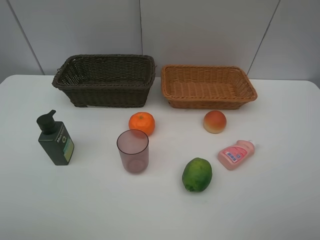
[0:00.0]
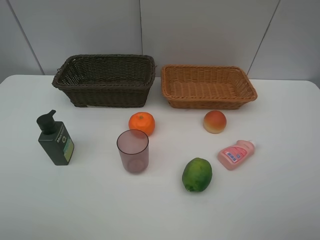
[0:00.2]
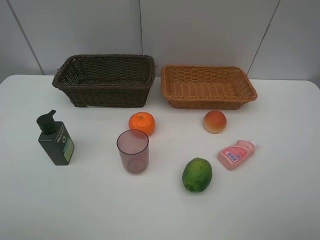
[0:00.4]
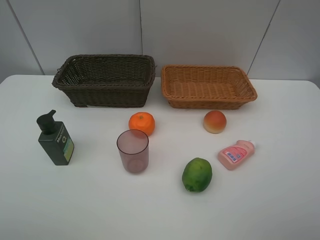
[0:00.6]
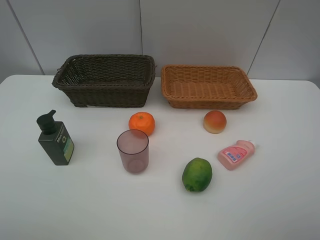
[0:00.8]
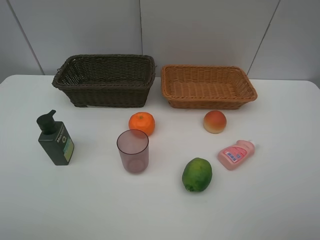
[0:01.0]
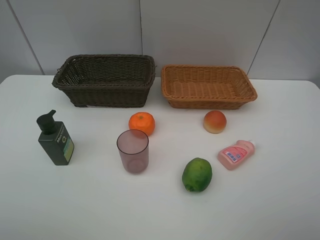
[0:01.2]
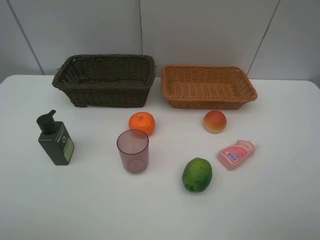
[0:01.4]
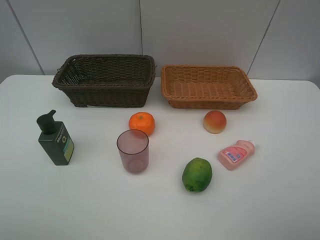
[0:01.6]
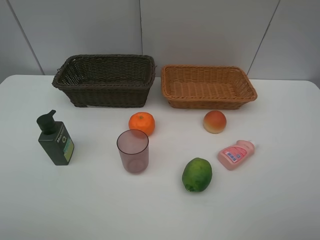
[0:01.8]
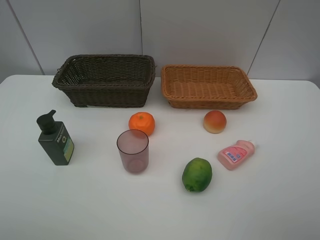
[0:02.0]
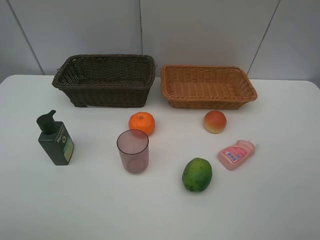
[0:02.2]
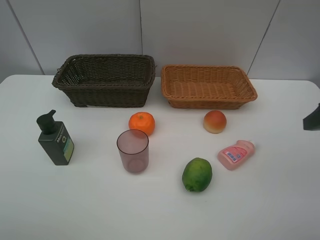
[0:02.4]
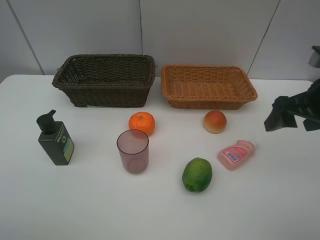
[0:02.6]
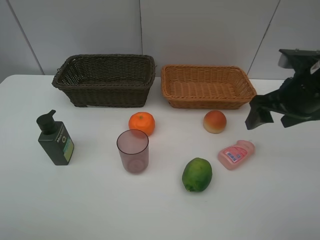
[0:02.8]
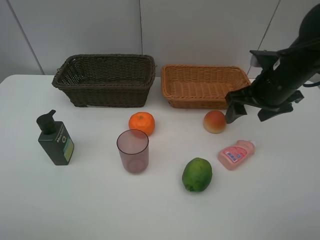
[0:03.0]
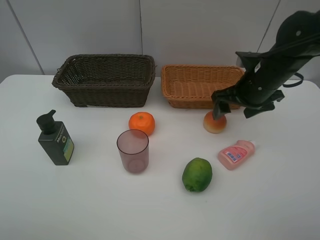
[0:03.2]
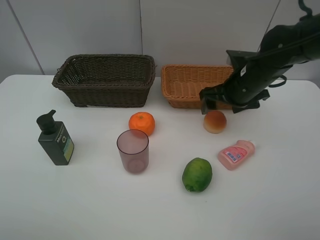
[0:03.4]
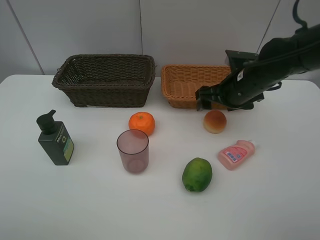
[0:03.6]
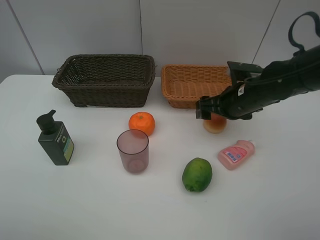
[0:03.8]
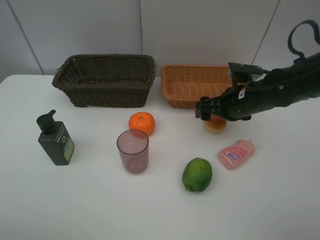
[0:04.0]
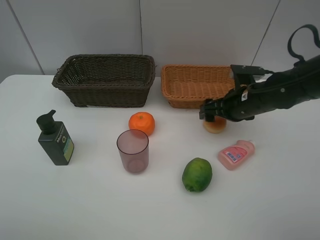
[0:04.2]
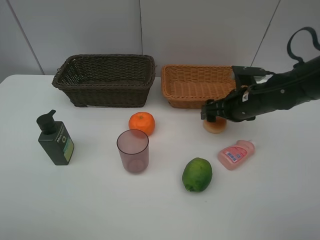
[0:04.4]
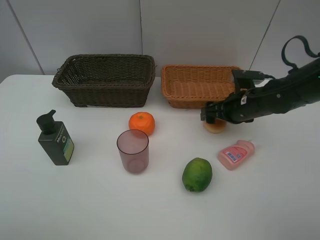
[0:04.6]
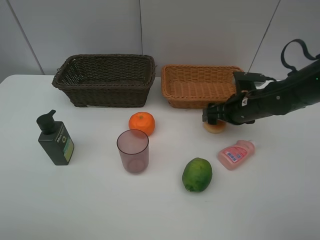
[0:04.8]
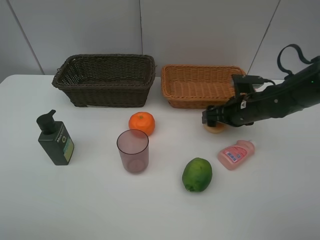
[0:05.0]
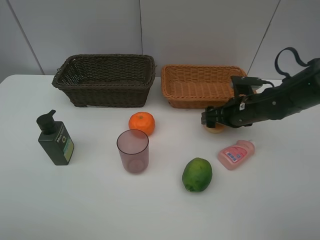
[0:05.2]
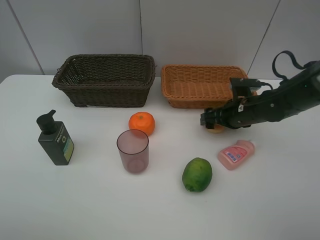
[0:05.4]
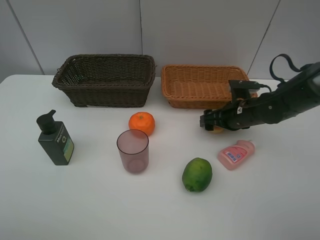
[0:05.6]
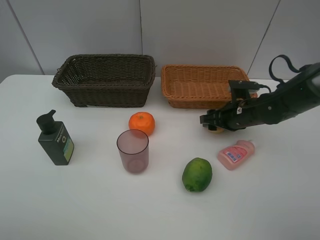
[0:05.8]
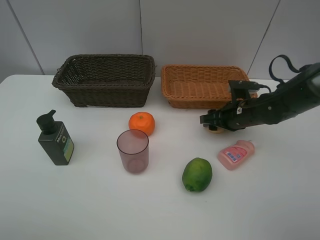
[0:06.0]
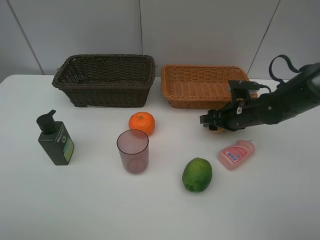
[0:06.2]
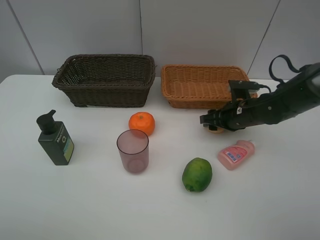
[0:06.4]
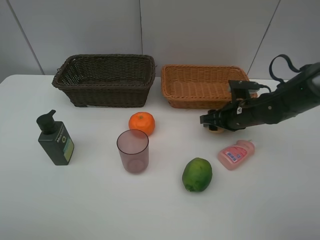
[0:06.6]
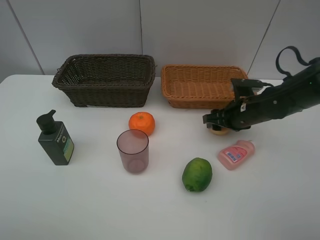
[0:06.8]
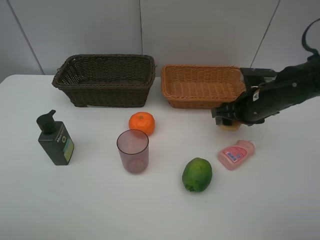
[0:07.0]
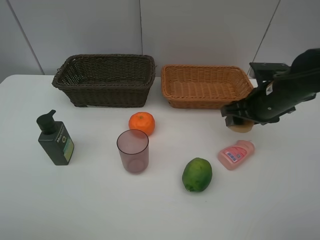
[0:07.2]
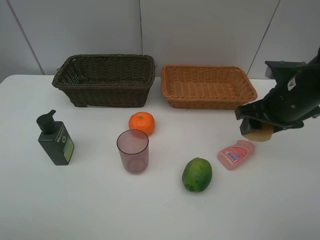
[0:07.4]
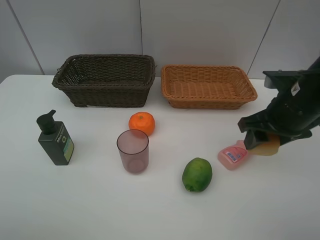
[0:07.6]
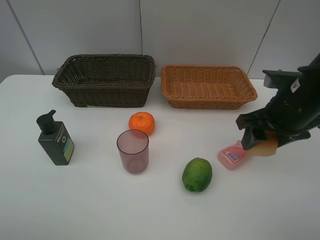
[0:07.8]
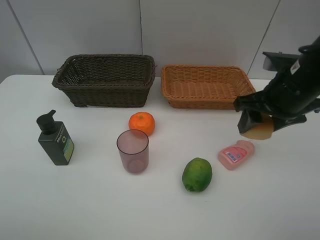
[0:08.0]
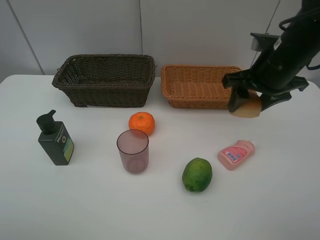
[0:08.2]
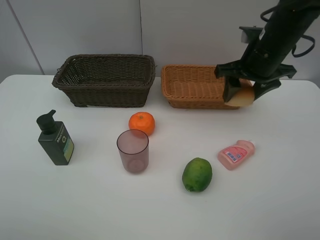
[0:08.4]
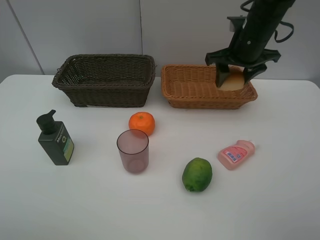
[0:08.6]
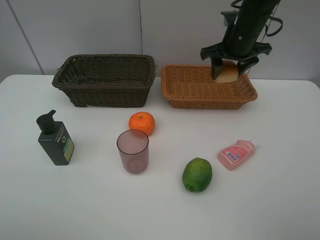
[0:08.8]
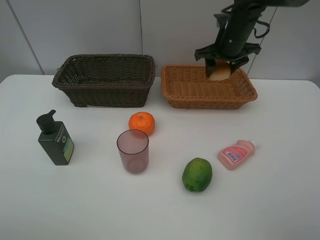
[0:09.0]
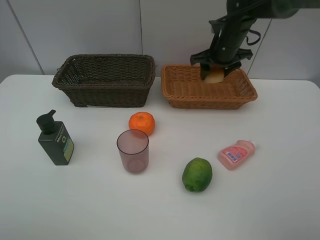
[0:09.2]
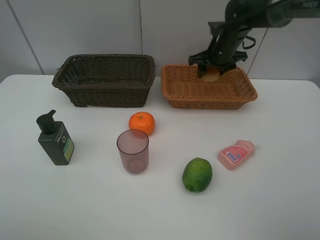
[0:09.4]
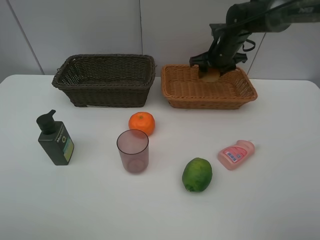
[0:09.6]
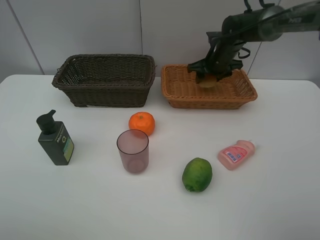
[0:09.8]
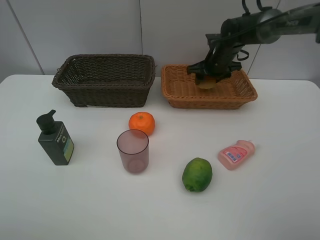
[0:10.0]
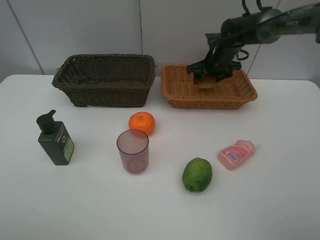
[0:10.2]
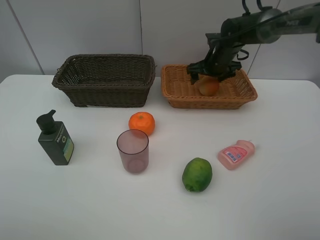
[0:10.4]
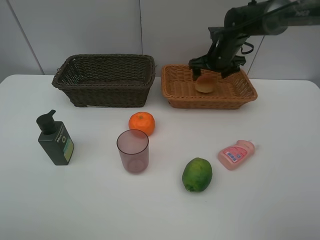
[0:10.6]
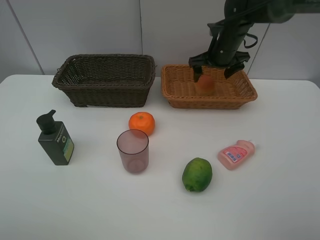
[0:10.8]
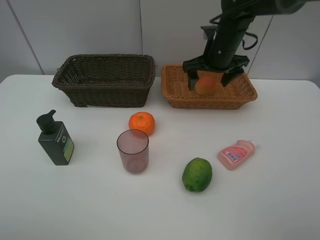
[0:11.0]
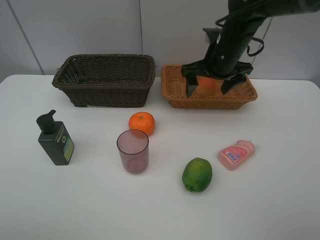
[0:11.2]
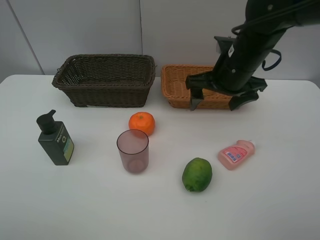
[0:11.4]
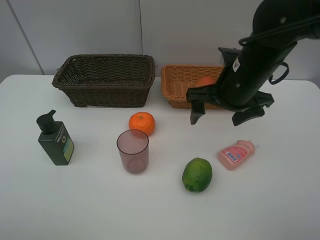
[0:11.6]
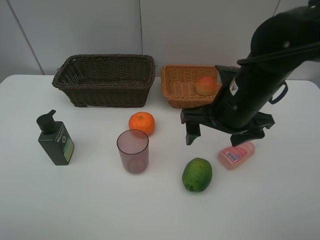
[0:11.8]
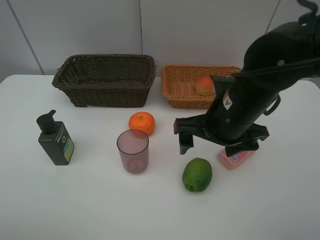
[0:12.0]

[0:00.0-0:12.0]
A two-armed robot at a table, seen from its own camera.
Task of the whole recording: place multiple objects separately in different baskets.
0:00.0 to 0:01.6: The two grippers keep their place.
0:01.6 to 0:03.0: The right gripper is displaced forward by about 30 cm.
0:03.0 to 0:04.4: The right gripper moves downward, some 10 cm.
0:04.4 to 0:06.0: The right gripper closes up.
0:06.0 to 0:07.6: The right gripper is displaced upward and backward by some 15 cm.
0:07.6 to 0:09.0: The right gripper shifts approximately 20 cm forward.
0:09.0 to 0:10.4: The right gripper shifts some 5 cm downward, and opens.
0:10.4 to 0:12.0: The right gripper heads backward, covering approximately 25 cm.

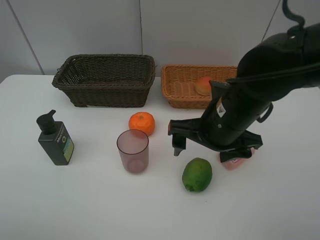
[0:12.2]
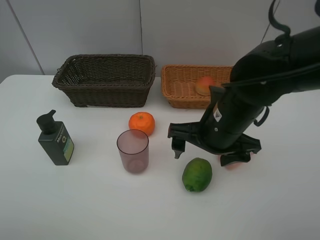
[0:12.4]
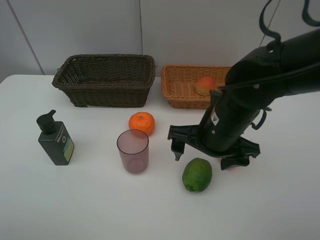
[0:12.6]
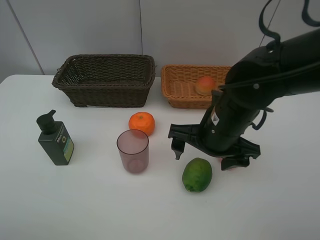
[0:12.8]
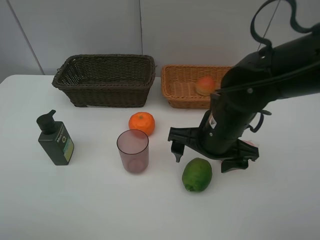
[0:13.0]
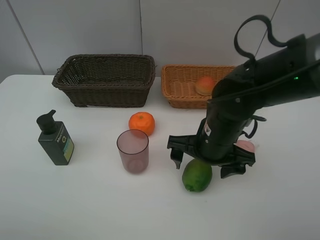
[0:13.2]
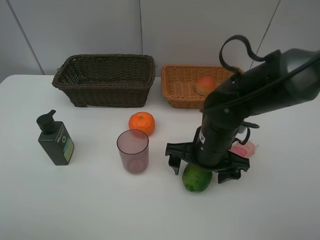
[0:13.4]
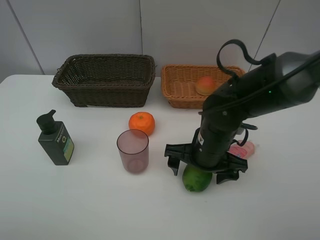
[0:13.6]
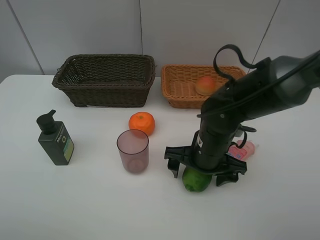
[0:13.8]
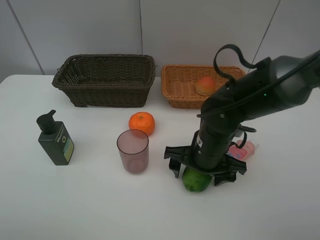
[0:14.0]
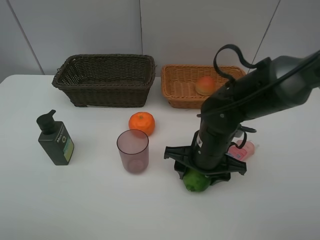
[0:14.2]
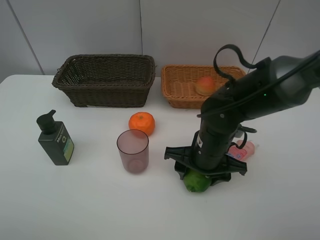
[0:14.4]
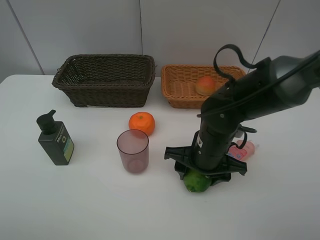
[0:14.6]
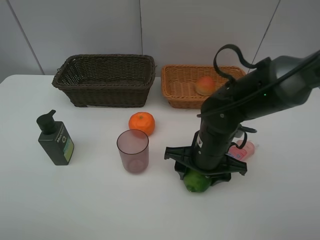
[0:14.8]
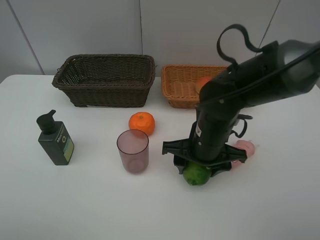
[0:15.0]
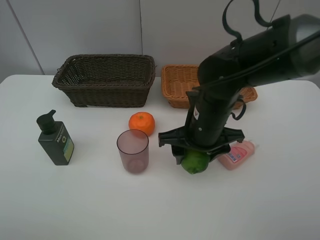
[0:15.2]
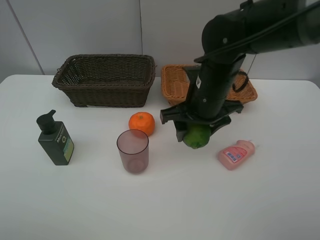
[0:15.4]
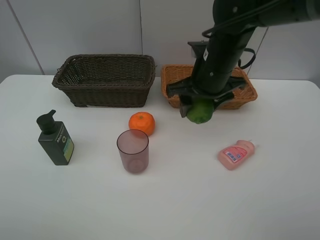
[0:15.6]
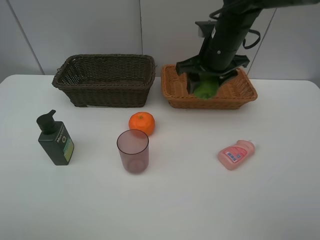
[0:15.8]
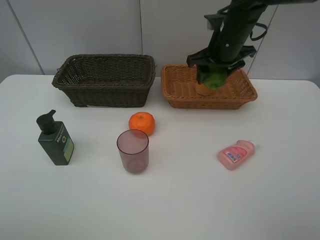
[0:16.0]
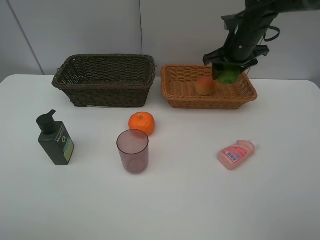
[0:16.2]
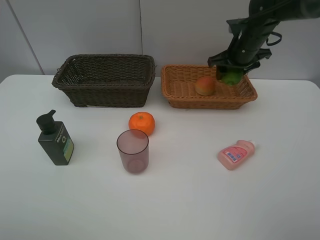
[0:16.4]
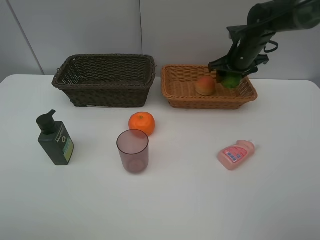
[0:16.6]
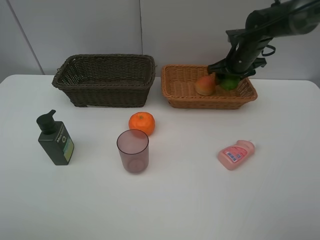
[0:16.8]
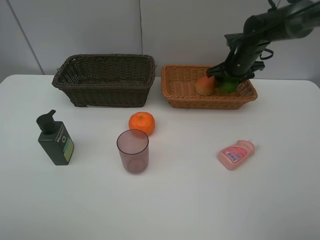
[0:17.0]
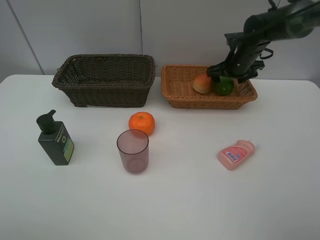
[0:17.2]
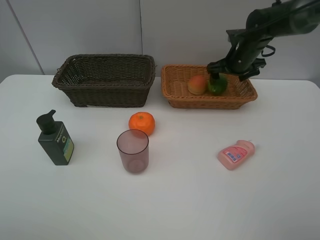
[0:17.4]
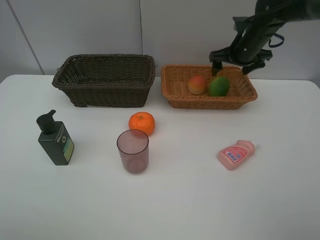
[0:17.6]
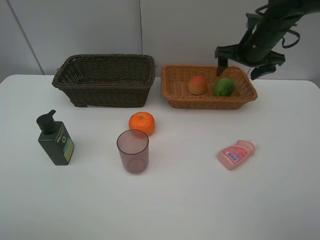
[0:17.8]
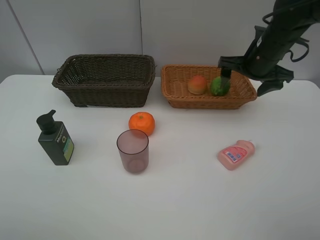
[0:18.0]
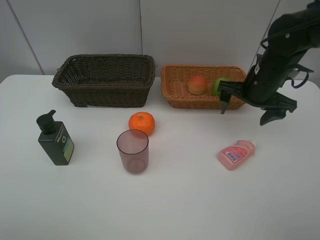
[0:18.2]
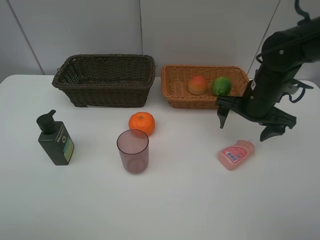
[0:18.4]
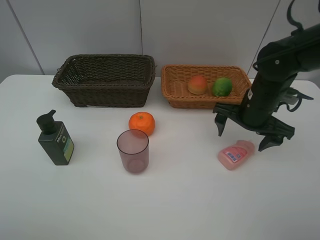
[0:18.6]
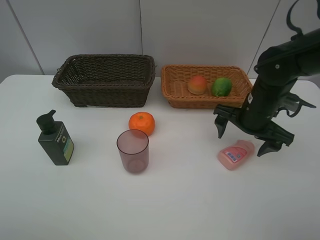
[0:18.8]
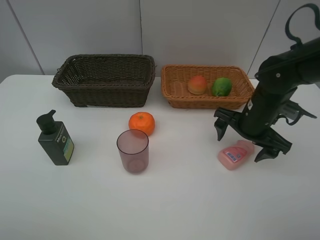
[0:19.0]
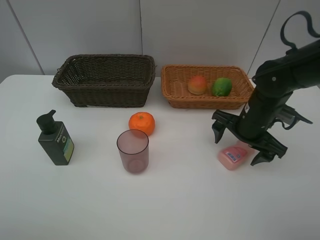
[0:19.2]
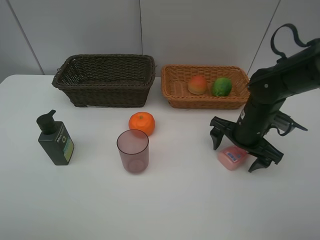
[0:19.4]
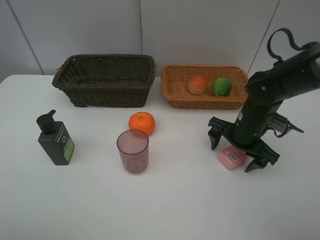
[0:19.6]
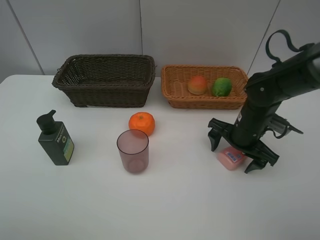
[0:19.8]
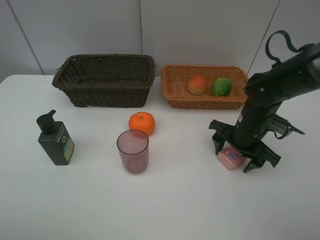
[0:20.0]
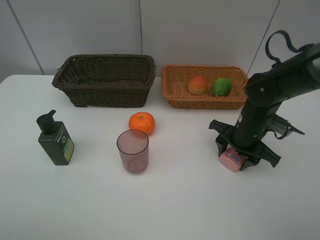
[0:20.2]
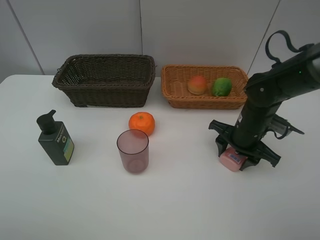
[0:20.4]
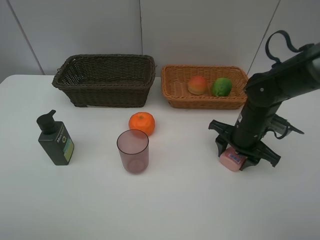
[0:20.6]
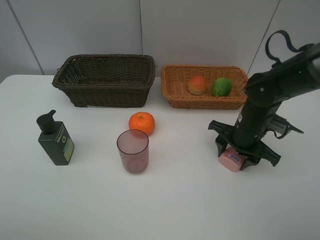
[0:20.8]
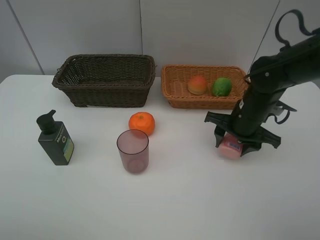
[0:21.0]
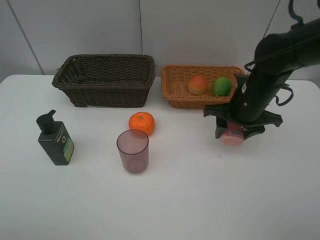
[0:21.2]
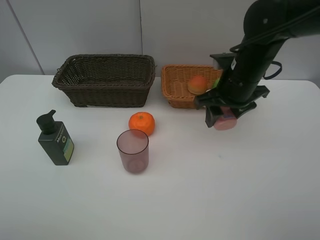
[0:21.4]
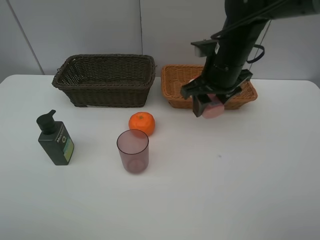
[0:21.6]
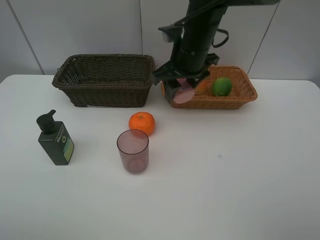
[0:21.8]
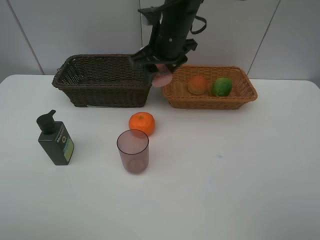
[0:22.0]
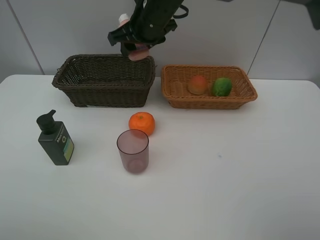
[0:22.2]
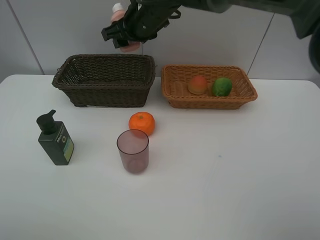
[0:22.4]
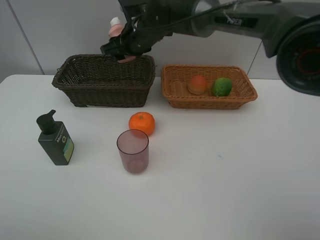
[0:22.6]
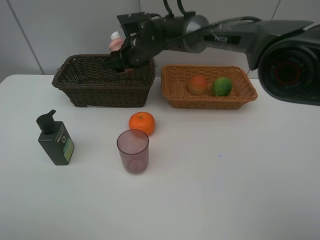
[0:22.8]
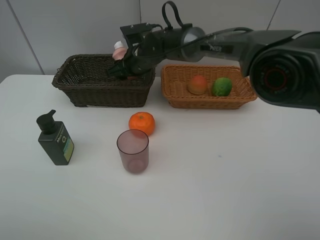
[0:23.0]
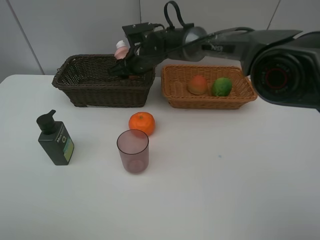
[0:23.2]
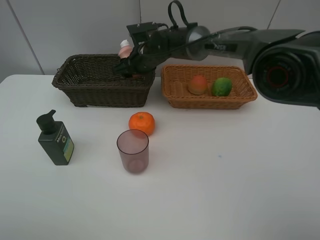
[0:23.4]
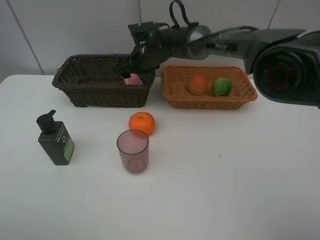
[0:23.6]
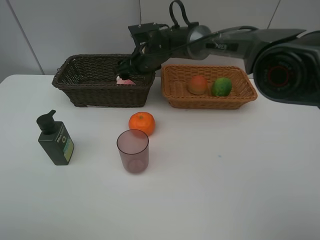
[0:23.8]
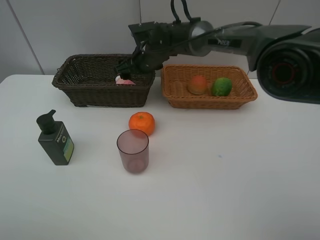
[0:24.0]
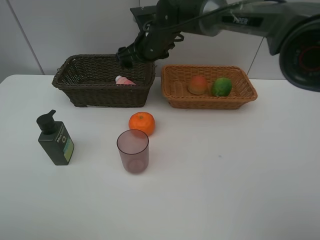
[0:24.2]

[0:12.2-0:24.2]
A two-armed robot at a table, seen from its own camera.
Task of the whole recording: place multiple objects separately in different baskets.
0:12.2 to 0:13.8: The right gripper travels downward by roughly 10 cm.
0:13.8 to 0:15.2: The right gripper moves upward, some 5 cm, and closes.
0:15.2 to 0:16.6: The right gripper goes some 25 cm forward and to the right.
0:16.6 to 0:18.2: The right gripper shifts approximately 15 cm backward, and opens.
0:18.2 to 0:19.8: The right gripper moves downward, approximately 10 cm.
0:19.8 to 0:21.2: The right gripper goes some 5 cm upward, and closes up.
0:21.2 to 0:22.6: The right gripper shifts some 25 cm to the left and forward.
0:22.6 to 0:24.2: The right gripper opens up.
